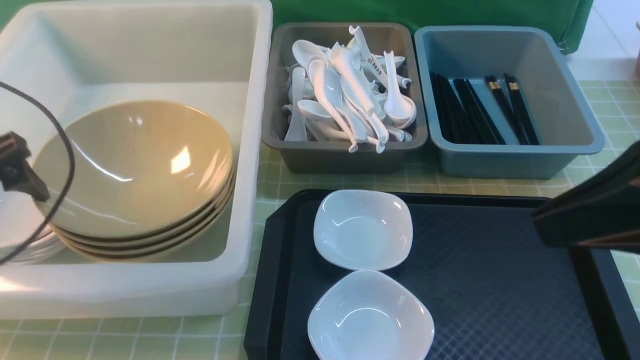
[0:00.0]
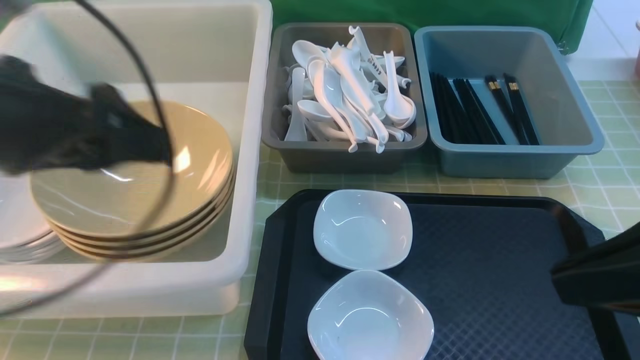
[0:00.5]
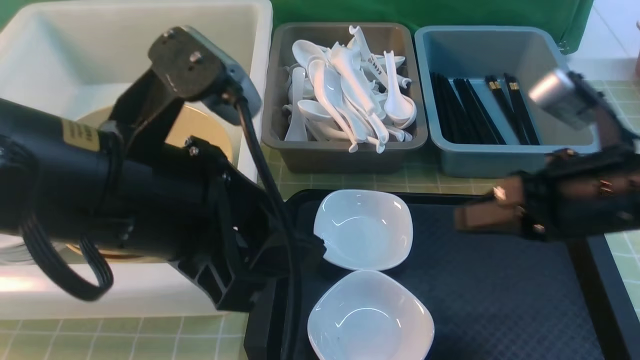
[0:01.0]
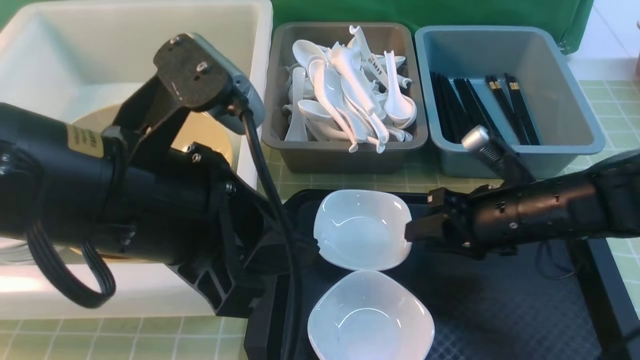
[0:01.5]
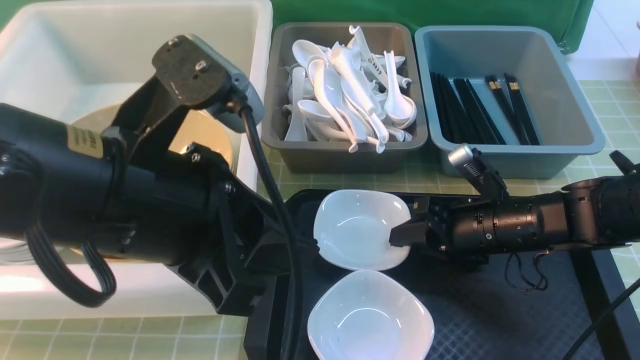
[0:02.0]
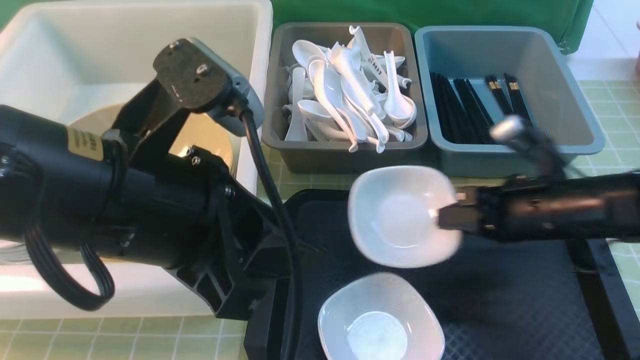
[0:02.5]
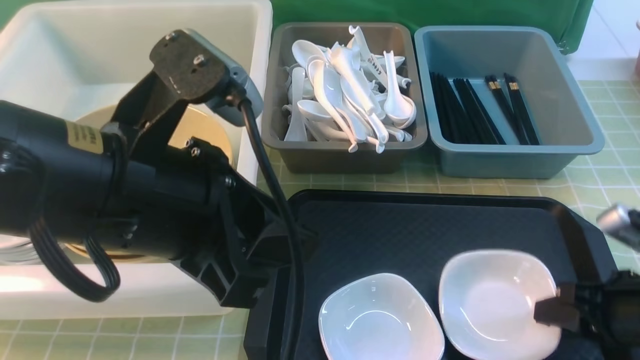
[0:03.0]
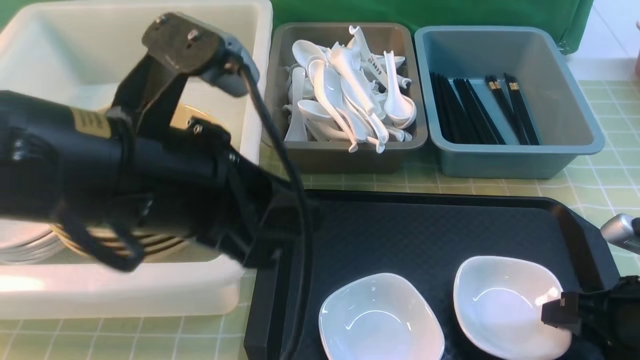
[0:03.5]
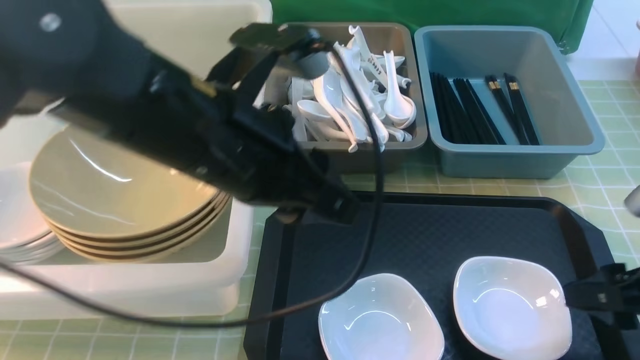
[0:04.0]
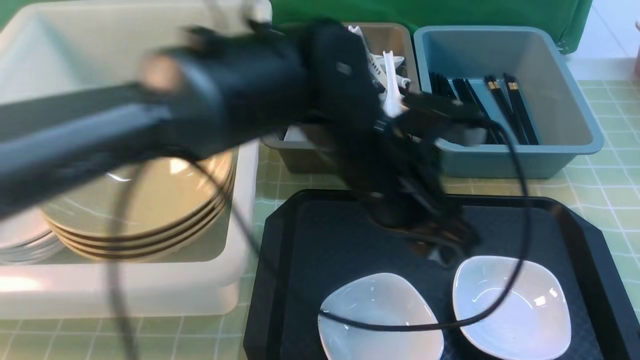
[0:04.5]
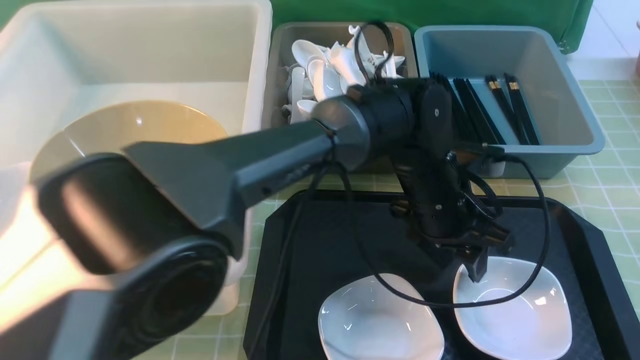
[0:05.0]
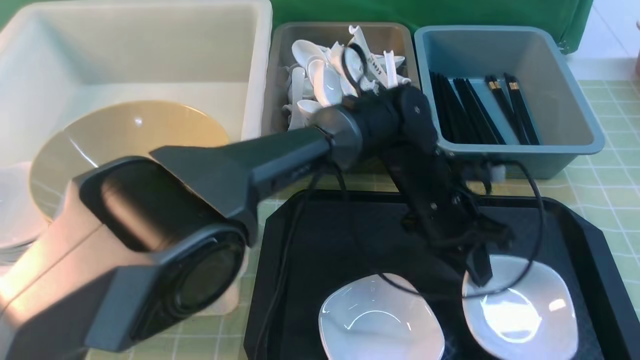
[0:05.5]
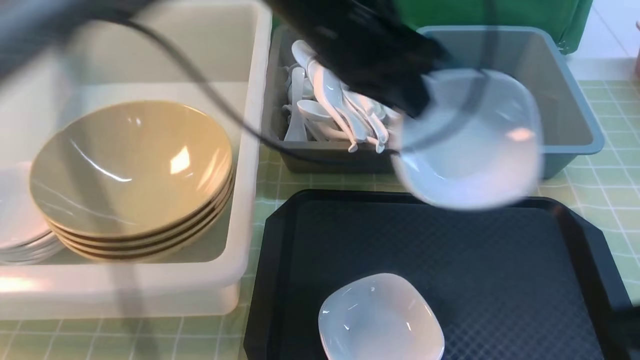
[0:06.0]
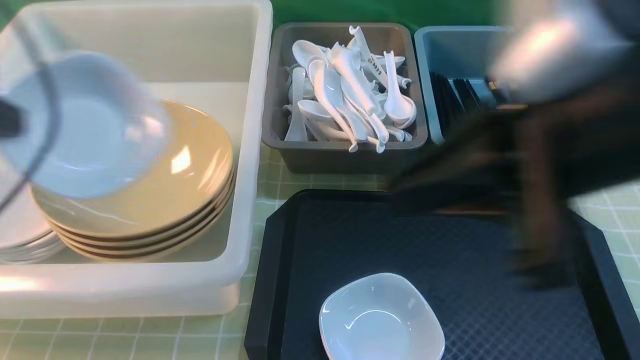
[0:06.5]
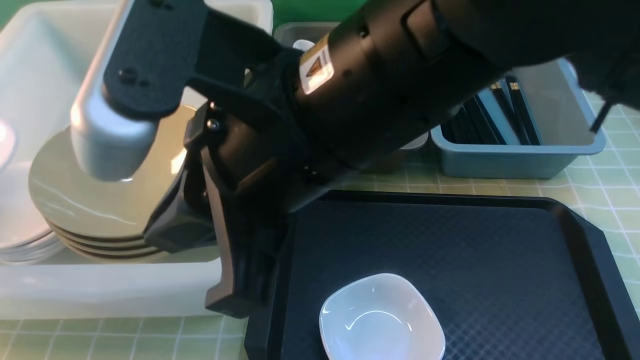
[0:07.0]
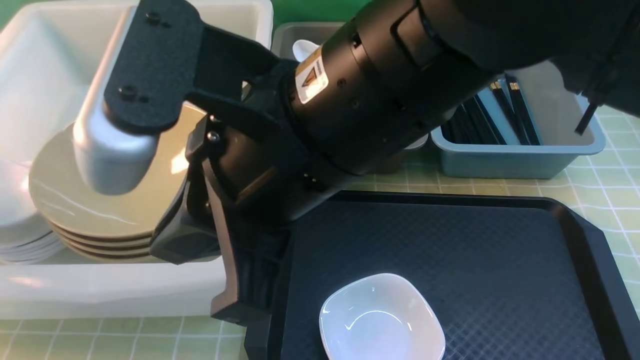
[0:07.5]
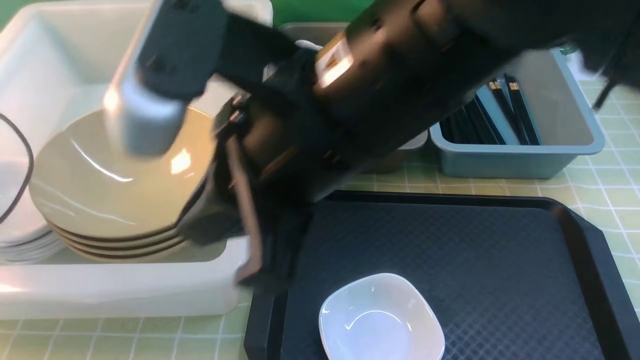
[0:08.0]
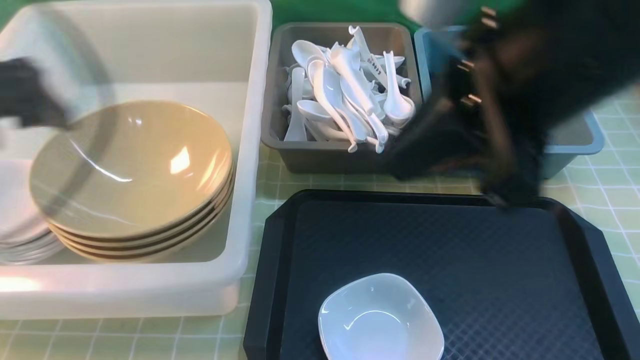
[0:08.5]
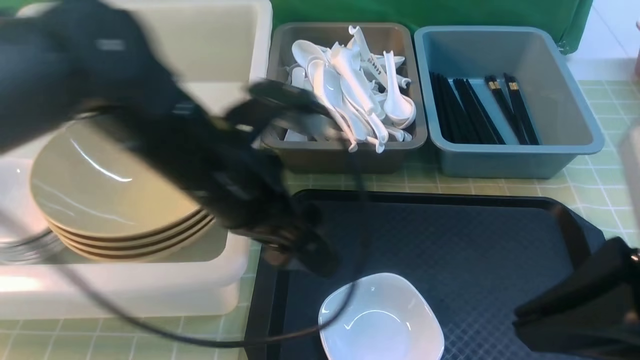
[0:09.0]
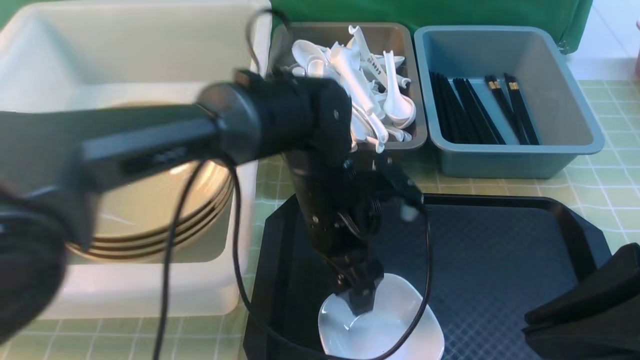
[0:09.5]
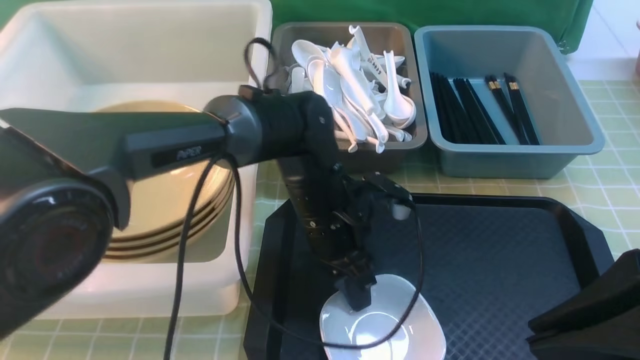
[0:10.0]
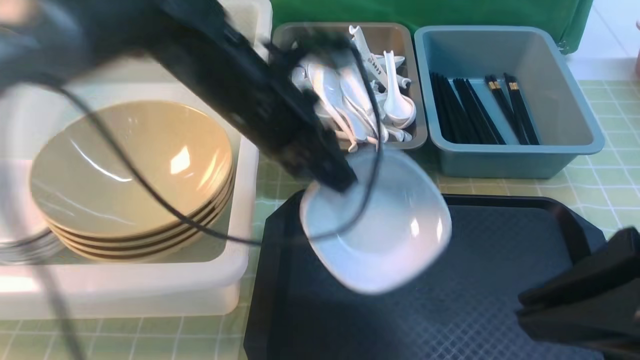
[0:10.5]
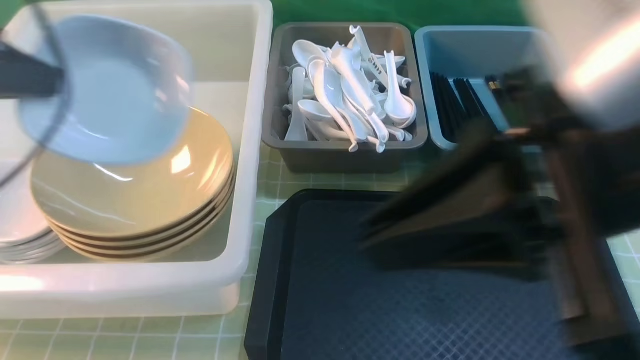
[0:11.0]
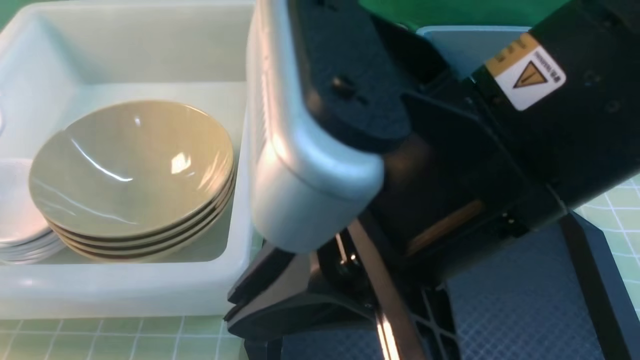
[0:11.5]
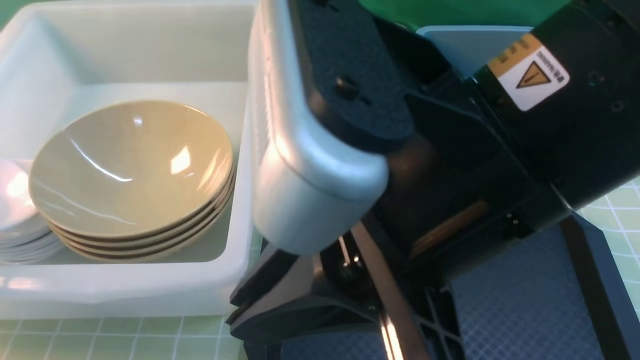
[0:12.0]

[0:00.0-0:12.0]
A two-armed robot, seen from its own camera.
Task of the whole recording: on green table put chopsticks spoon bowls plates into blue grey white boxes.
Step, 0:01.0 to 0:02.0: use the right arm to grab the plate.
Step, 0:02.5 to 0:03.5: use the right arm to put the plate on the tray.
Step, 0:04.0 to 0:05.5: use the left arm to grab the plate.
Step, 0:06.0 to 0:07.5: use the left arm to put the plate into the large storage box on the left.
Step, 0:08.5 to 0:10.0: use the left arm to grab the plate.
0:00.0 to 0:02.0: The right gripper travels downward and forward by roughly 30 cm; the left gripper shifts approximately 25 cm to the right and backward, and closes its fingers.
0:02.0 to 0:04.0: The left gripper moves forward, about 5 cm. The right gripper travels backward, upward and to the right by roughly 20 cm, and opens.
0:04.0 to 0:06.0: The left gripper goes some 10 cm forward, travels downward and back again, approximately 15 cm each way, and closes. Meanwhile the right gripper heads upward, backward and to the left, covering roughly 15 cm, and closes its fingers.
0:06.0 to 0:08.0: The left gripper moves to the left, roughly 35 cm, and opens its fingers, while the right gripper goes approximately 25 cm to the left and forward.
0:08.0 to 0:10.0: The right gripper moves to the right and backward, approximately 20 cm. Meanwhile the left gripper shifts approximately 40 cm to the right, and closes its fingers.
0:10.0 to 0:12.0: The left gripper moves to the left, about 40 cm, while the right gripper moves to the left, some 15 cm.

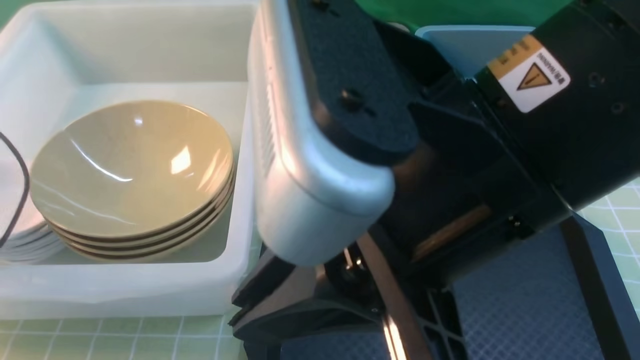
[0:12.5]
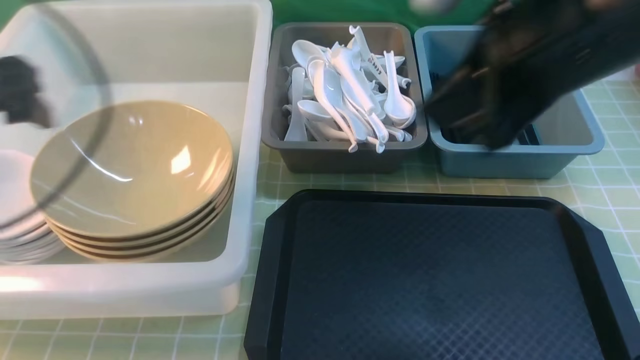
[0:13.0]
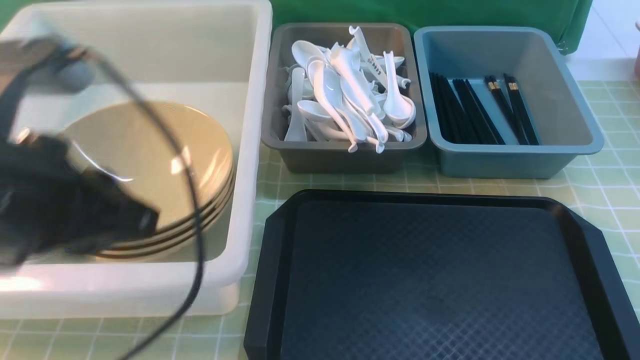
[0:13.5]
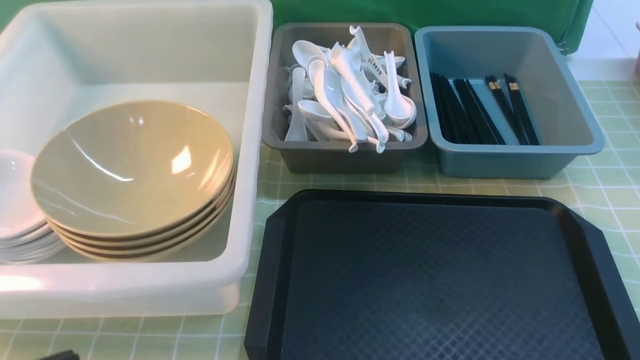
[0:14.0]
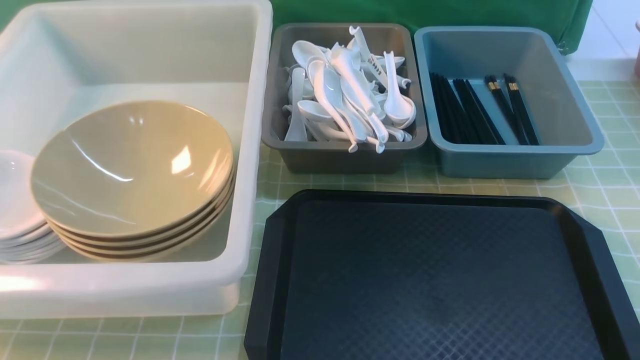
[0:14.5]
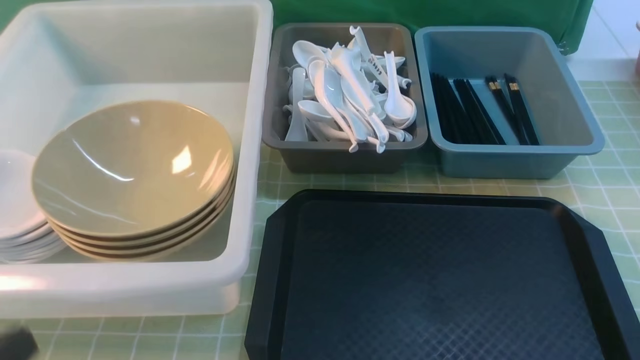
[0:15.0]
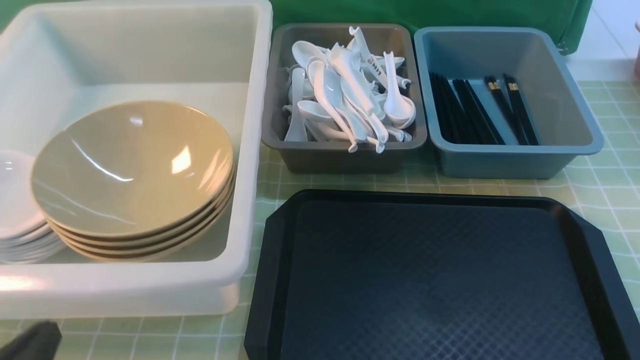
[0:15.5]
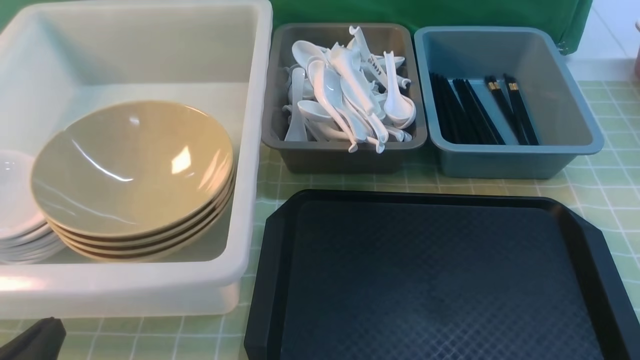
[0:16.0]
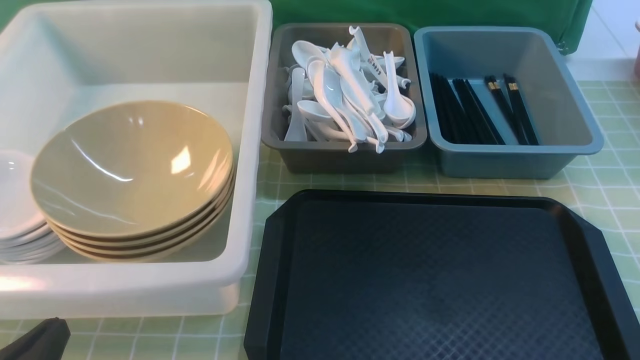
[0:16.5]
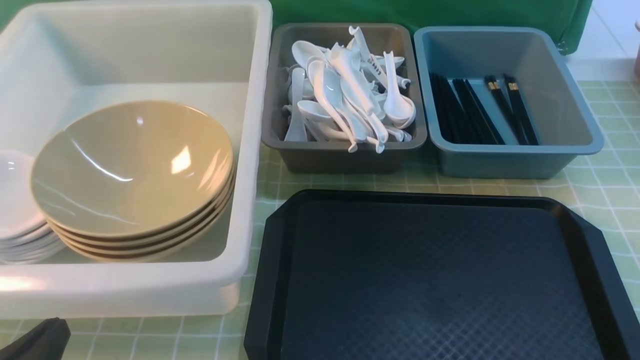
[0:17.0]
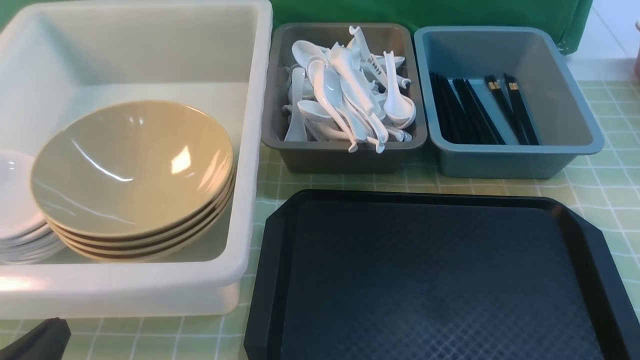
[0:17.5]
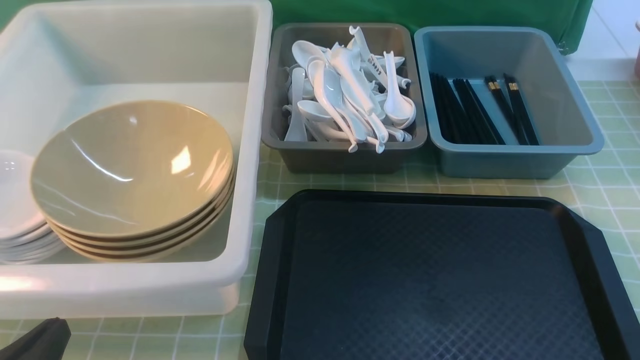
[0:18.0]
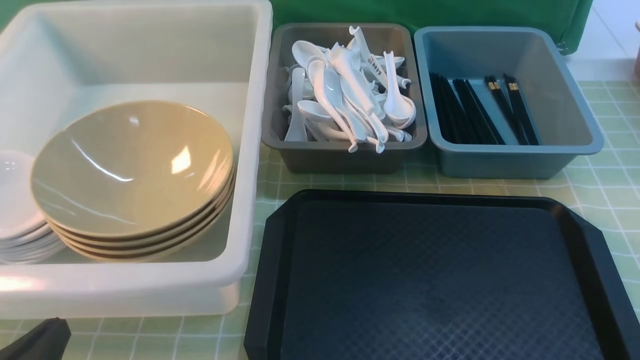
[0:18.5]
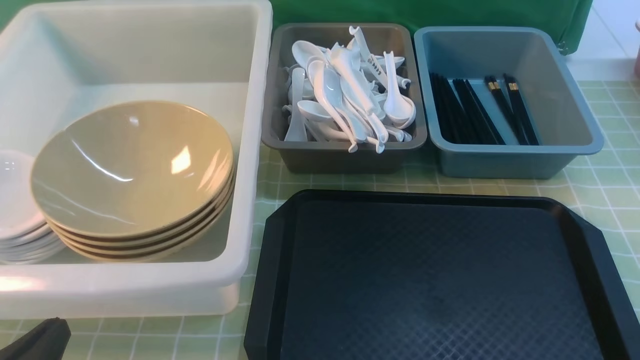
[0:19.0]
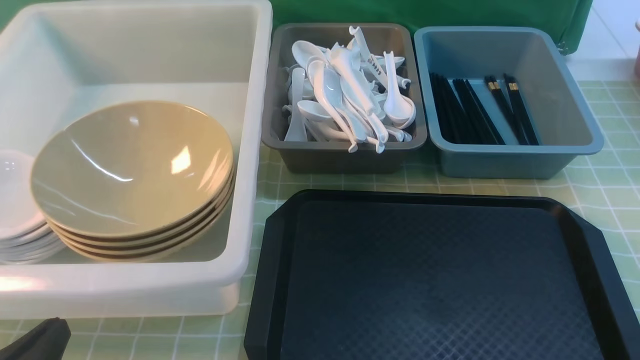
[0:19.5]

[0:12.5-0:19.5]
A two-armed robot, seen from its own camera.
Task of the whole recording: on green table put chopsticks spoon bowls plates into blue grey white boxes.
0:12.5 to 0:14.5: The left gripper goes some 30 cm backward and to the right, and closes. Meanwhile the right gripper moves to the right, downward and backward, roughly 30 cm.
0:14.5 to 0:16.0: The left gripper travels downward by roughly 10 cm.
0:17.5 to 0:19.5: Both grippers stay put.
